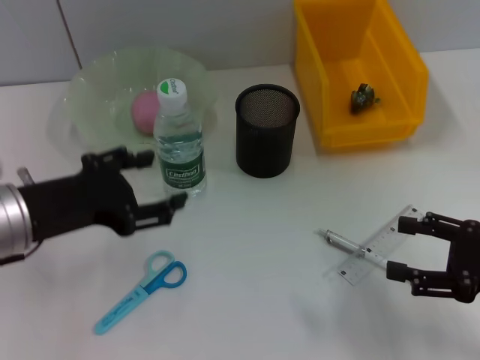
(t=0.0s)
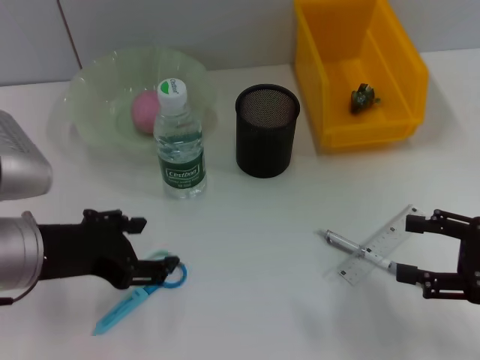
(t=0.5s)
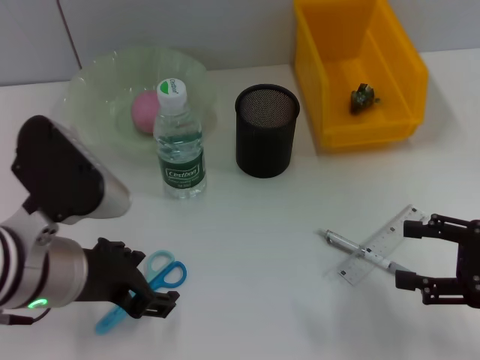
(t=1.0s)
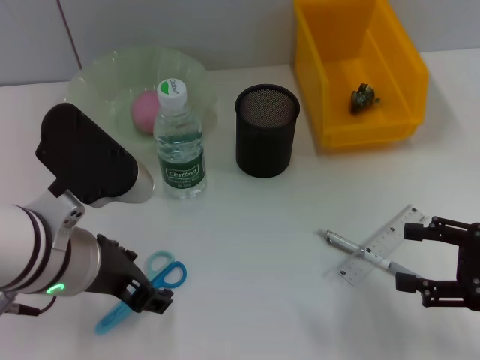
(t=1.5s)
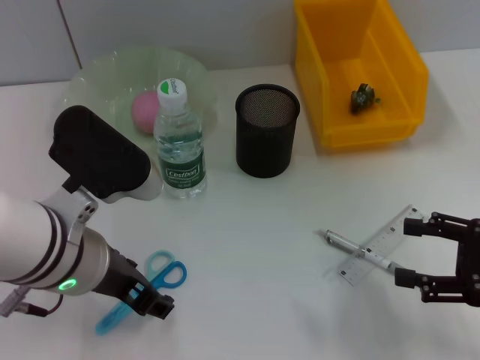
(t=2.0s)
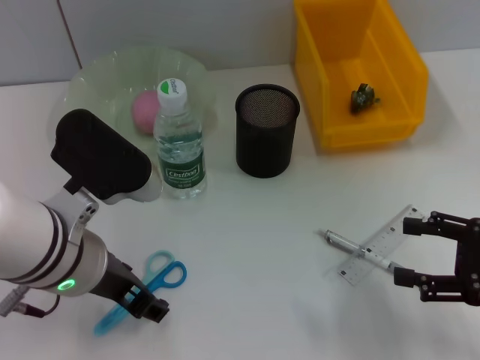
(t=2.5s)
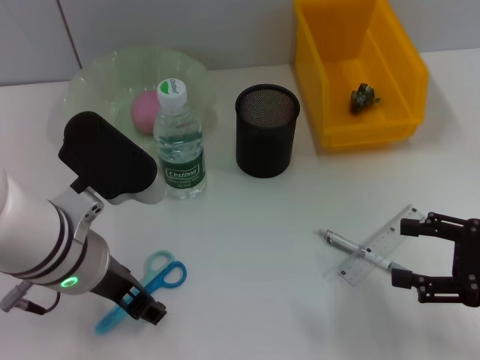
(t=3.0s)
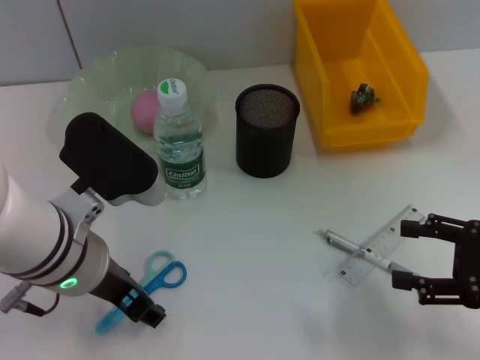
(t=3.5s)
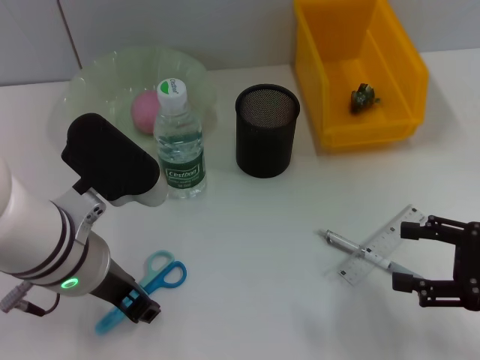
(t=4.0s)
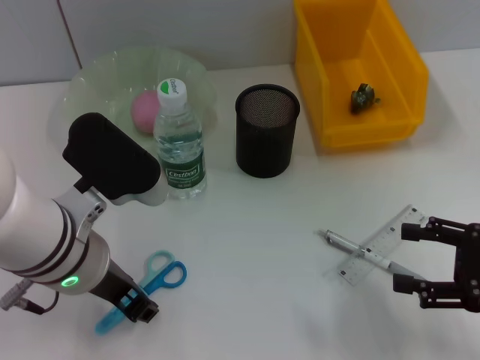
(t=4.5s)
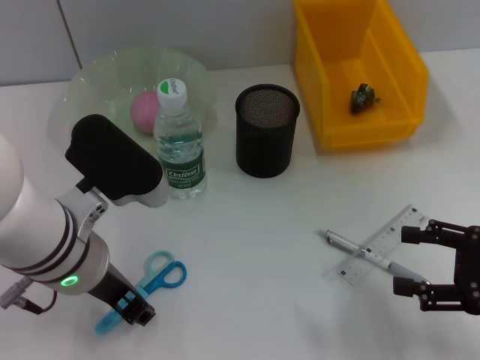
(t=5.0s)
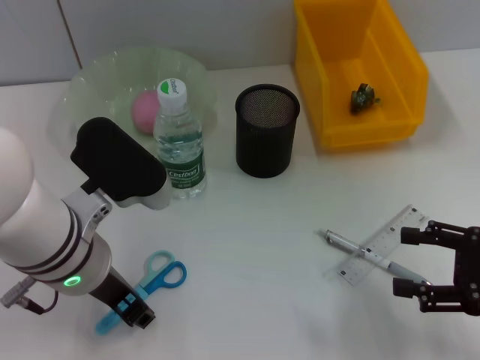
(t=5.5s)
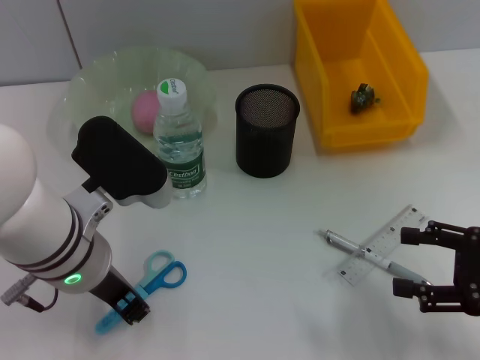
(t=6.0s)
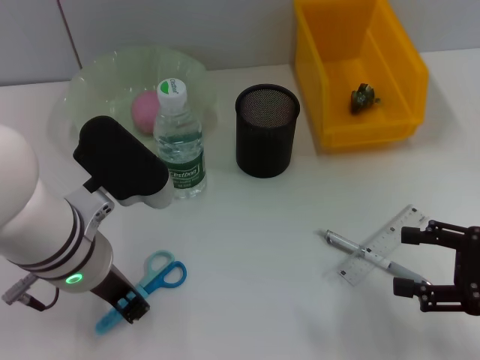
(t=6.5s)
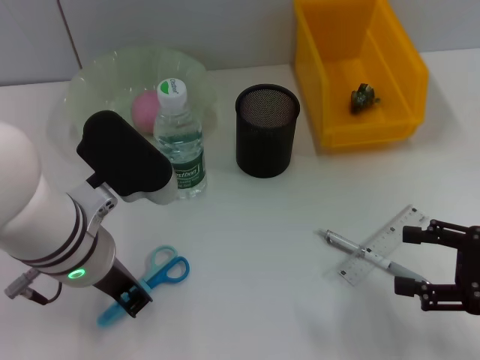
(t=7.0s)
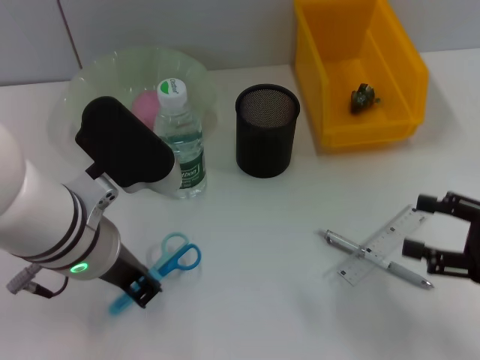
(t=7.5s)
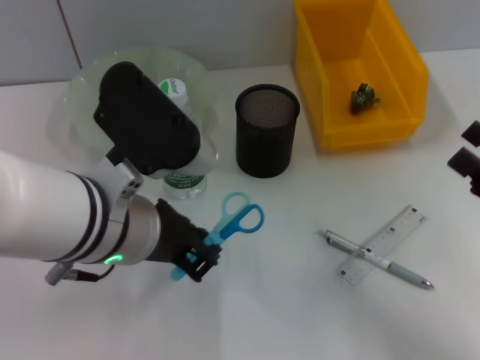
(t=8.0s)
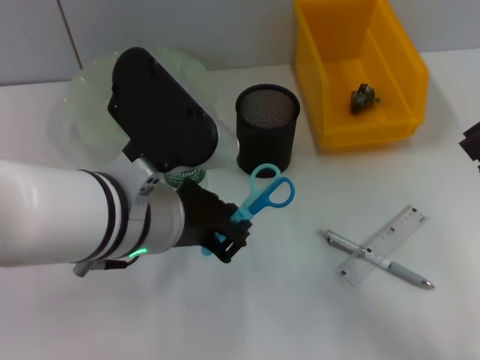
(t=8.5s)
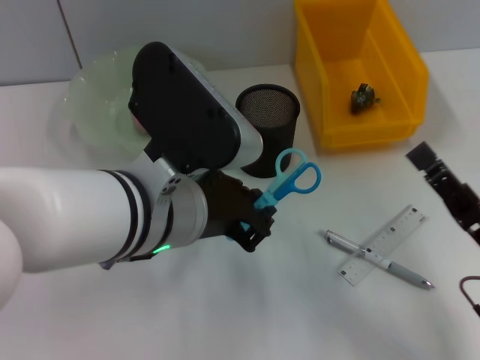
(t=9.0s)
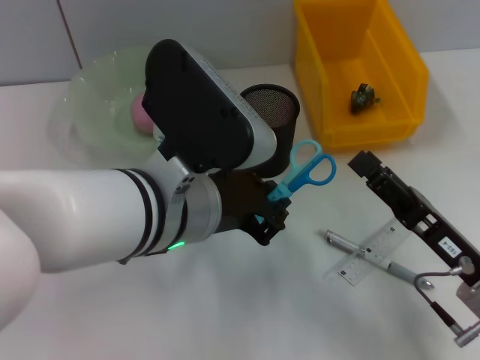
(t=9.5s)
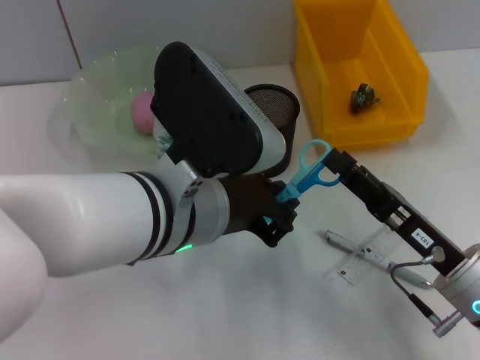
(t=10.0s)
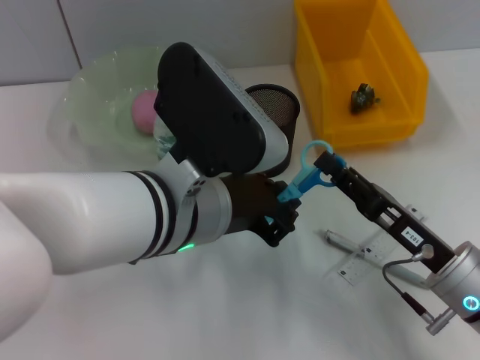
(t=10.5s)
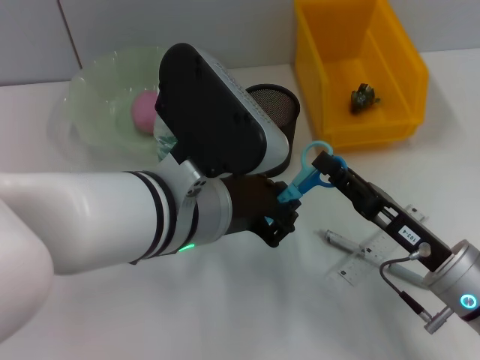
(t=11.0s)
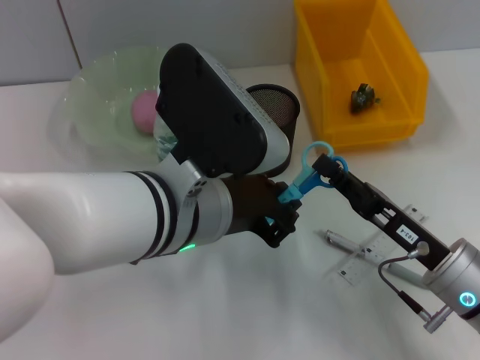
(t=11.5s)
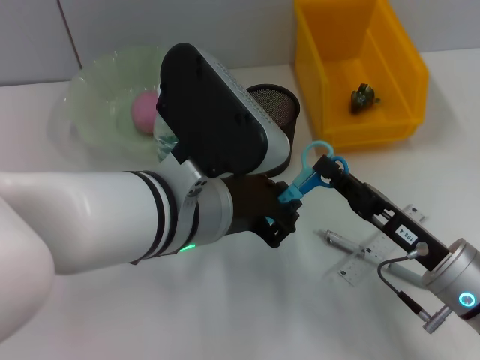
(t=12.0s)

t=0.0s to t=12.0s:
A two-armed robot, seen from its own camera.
Step, t=0.0s to t=6.5s: Grab the blue scissors with the left hand.
t=0.0s to t=2.0s: The left gripper heads to the right, covering approximately 10 cm.
t=2.0s to t=4.0s: The grippers make only small movements.
t=4.0s to t=6.0s: The left gripper closes up.
t=6.0s to t=8.0s: The left gripper moves some 5 cm, and closes its fingers.
t=8.0s to t=10.0s: The right gripper shifts about 10 cm to the left.
t=10.0s to t=12.0s: The right gripper closes.

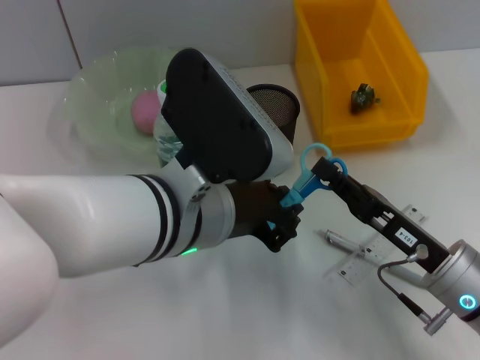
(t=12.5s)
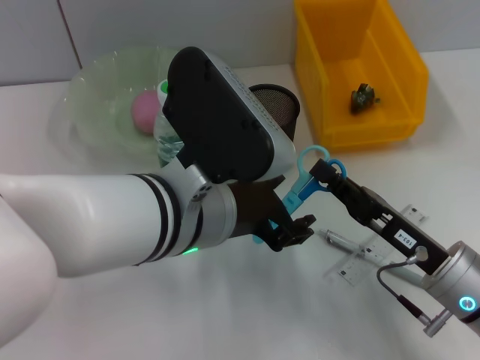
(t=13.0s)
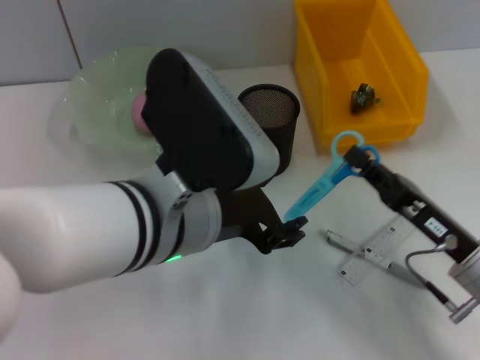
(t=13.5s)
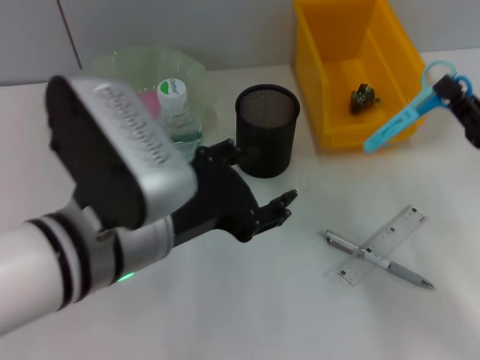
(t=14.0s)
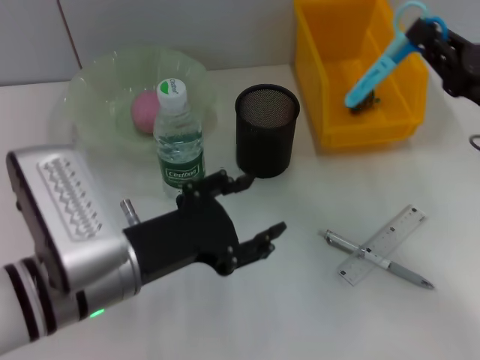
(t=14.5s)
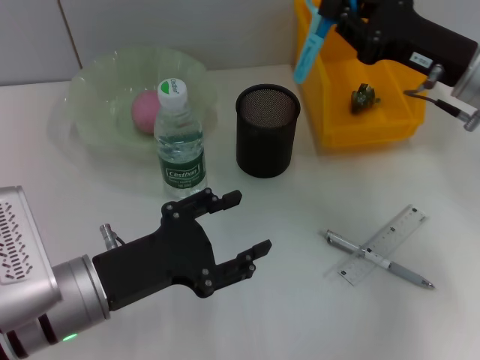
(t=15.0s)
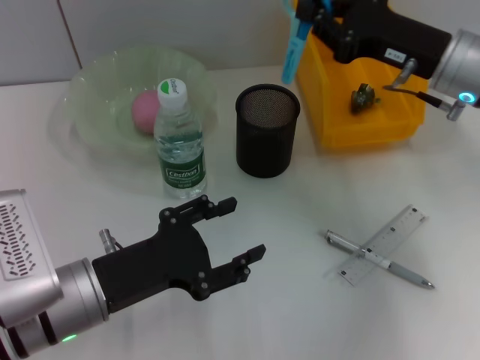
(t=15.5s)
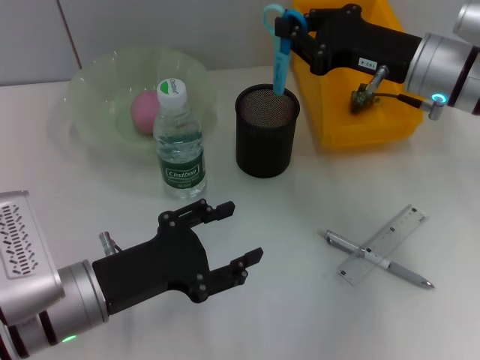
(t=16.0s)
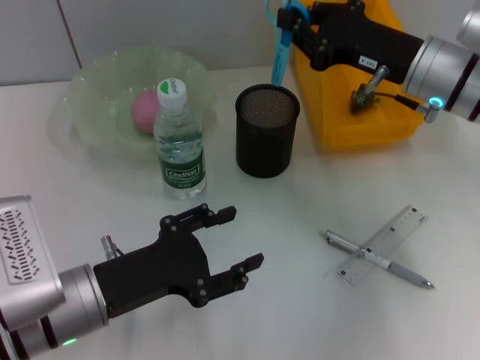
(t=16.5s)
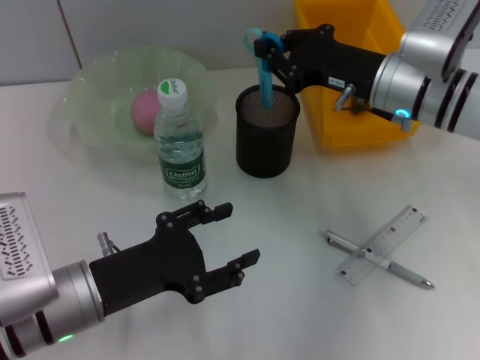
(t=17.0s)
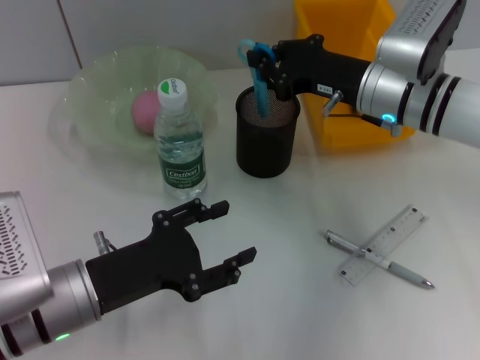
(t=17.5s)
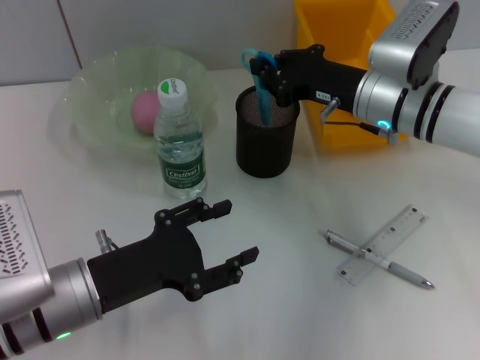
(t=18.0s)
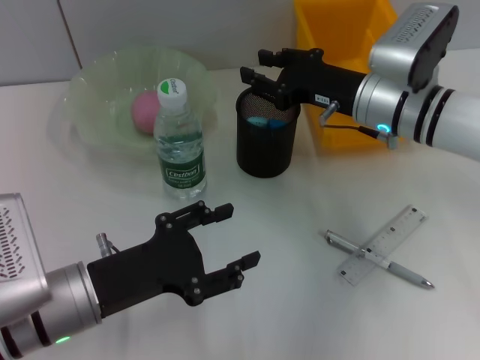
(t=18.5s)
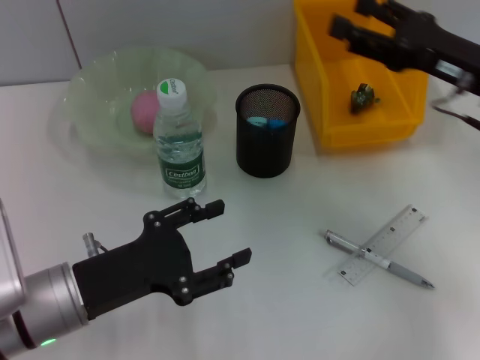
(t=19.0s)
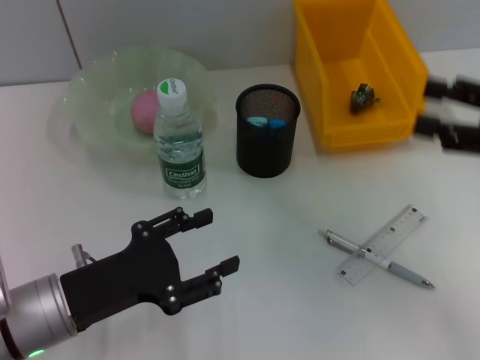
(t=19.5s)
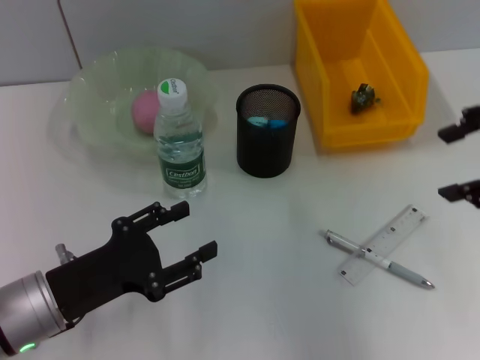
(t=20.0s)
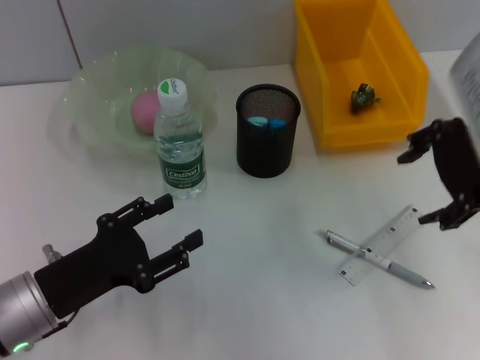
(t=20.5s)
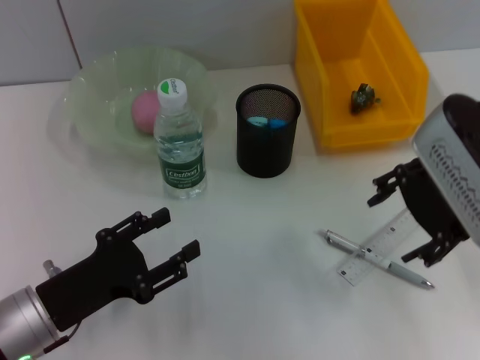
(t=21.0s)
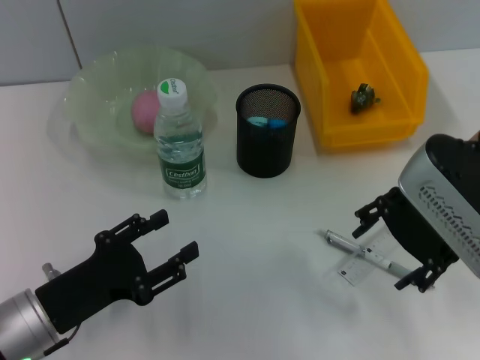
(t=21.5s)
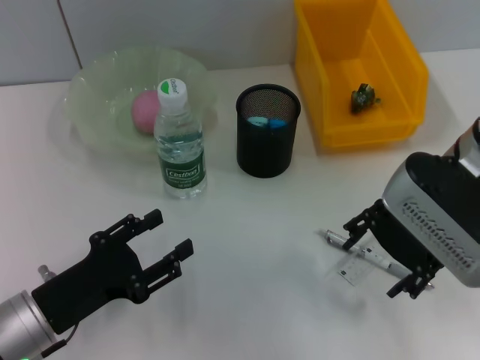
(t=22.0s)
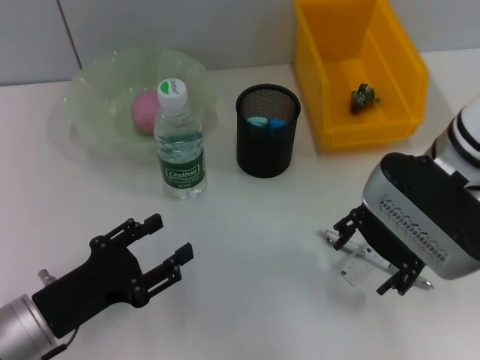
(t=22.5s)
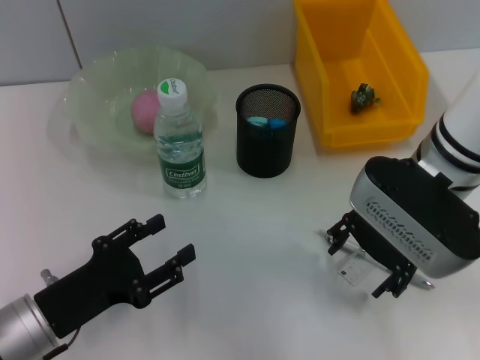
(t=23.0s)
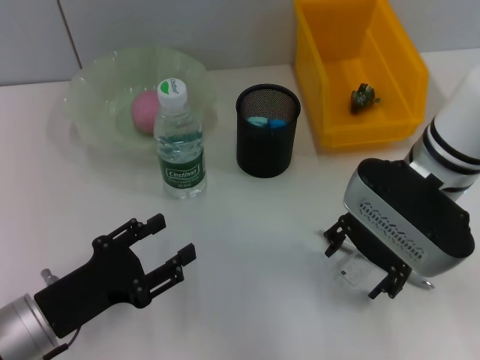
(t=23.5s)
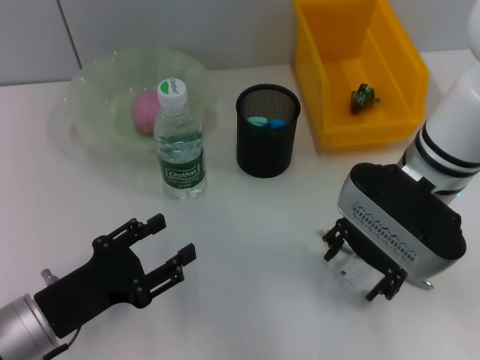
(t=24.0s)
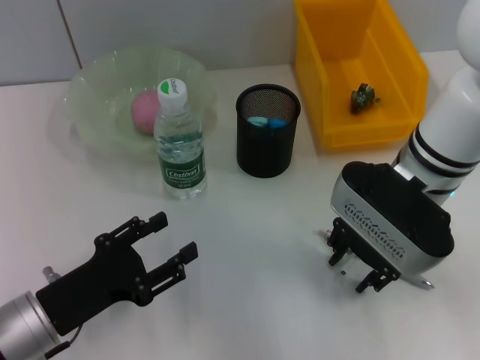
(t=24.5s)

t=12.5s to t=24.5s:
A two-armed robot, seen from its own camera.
Step, t=13.5s to t=18.0s: Place the blue scissors into the pen holder with the right hand.
t=12.5s to t=14.5s: The right gripper goes roughly 15 cm upward, to the right and forward. The left gripper moves to the left and downward, some 10 cm, and opens up.
t=14.5s to t=16.5s: The left gripper shifts roughly 5 cm downward, while the right gripper moves forward and to the left, approximately 10 cm.
t=16.5s to t=18.5s: The right gripper changes place by some 5 cm.
t=18.5s to t=20.5s: The right gripper heads upward and backward, covering some 15 cm, goes to the right and returns, approximately 15 cm each way, and opens its fingers.
t=20.5s to t=22.5s: The right gripper heads downward and to the left, covering approximately 10 cm.
t=22.5s to t=24.5s: The grippers make only small movements.

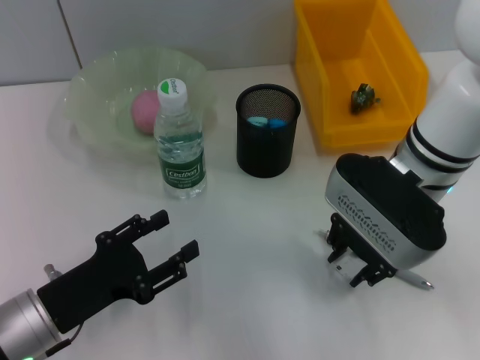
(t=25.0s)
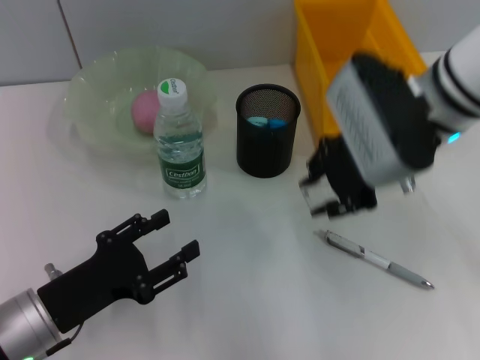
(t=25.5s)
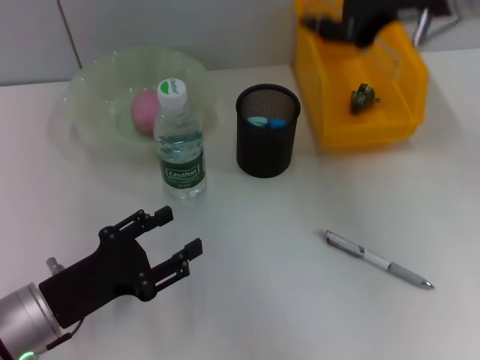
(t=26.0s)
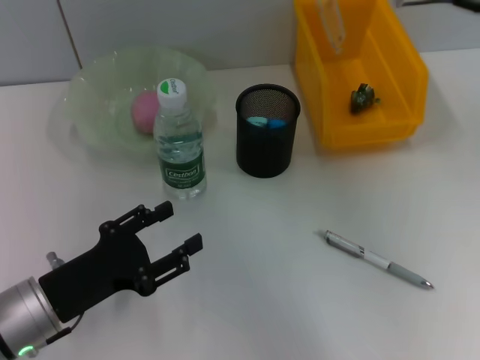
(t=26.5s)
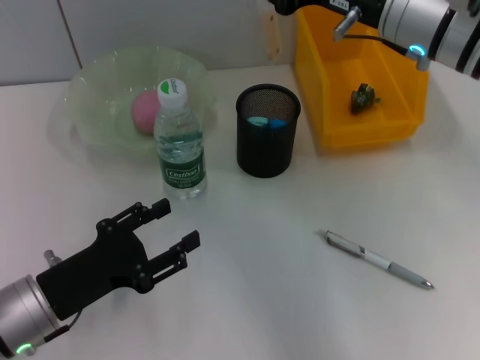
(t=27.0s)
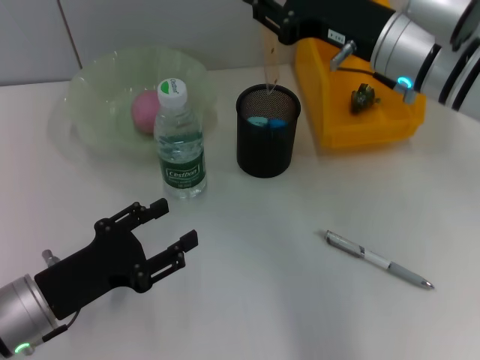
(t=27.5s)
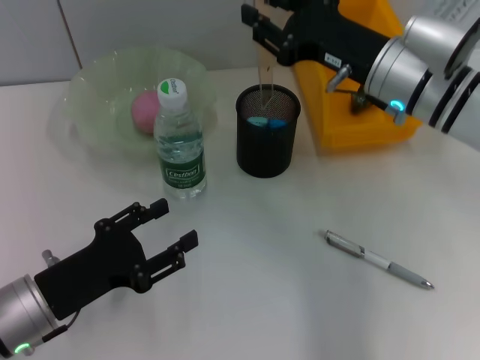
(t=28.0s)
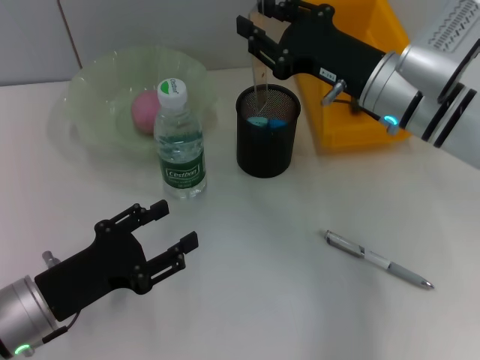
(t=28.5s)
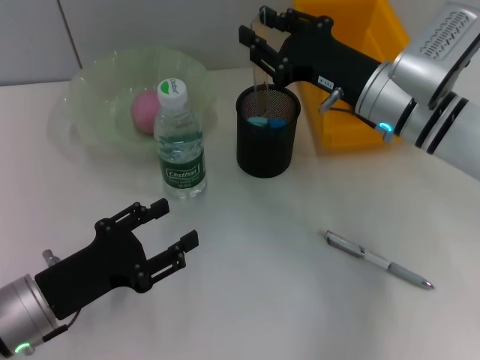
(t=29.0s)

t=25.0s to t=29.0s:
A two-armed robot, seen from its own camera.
t=25.0s to t=27.0s: The right gripper goes approximately 10 cm upward.
t=27.0s to t=29.0s: The right gripper moves downward, about 10 cm.
